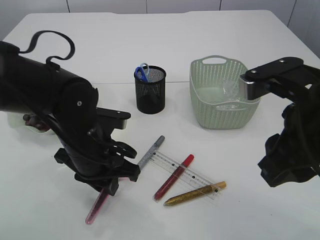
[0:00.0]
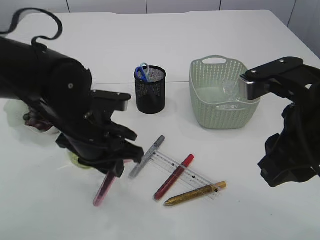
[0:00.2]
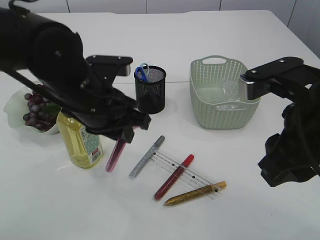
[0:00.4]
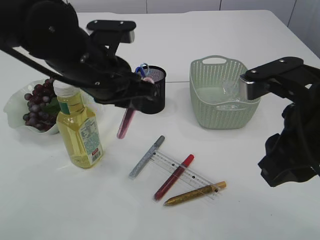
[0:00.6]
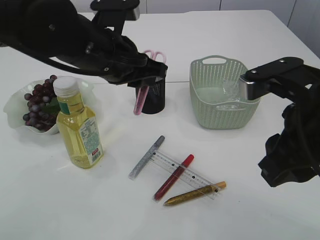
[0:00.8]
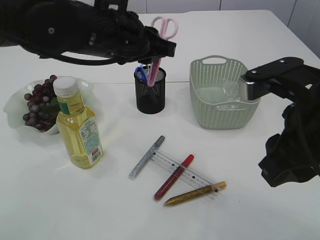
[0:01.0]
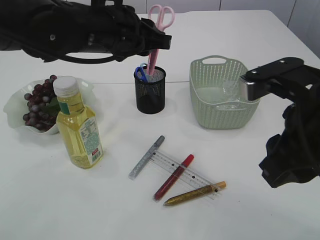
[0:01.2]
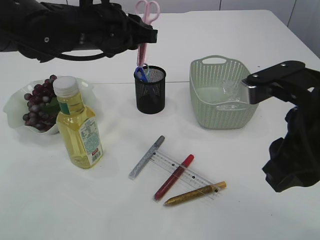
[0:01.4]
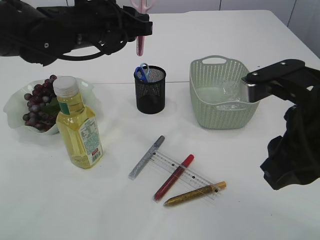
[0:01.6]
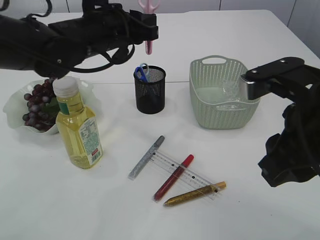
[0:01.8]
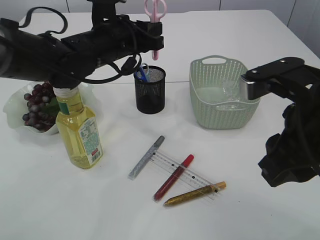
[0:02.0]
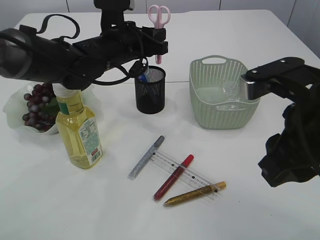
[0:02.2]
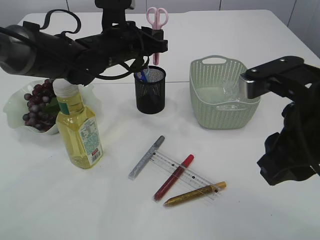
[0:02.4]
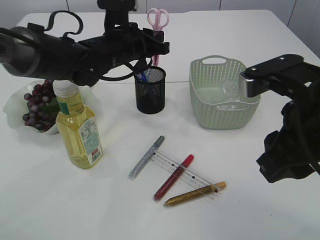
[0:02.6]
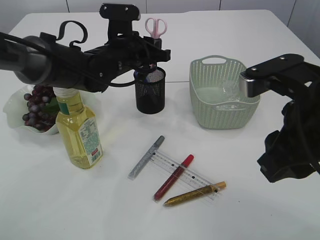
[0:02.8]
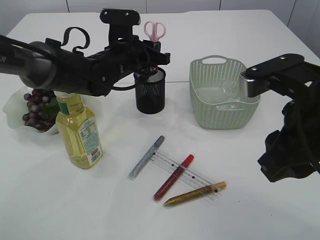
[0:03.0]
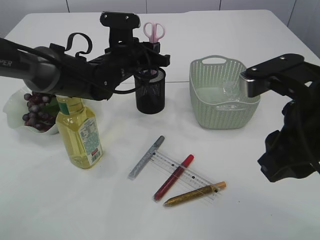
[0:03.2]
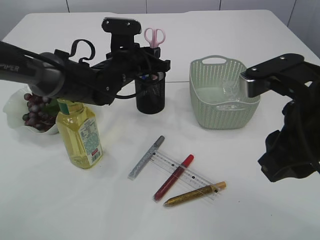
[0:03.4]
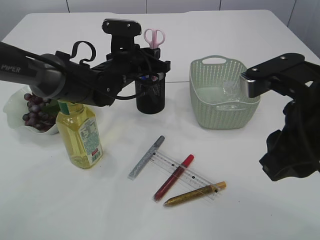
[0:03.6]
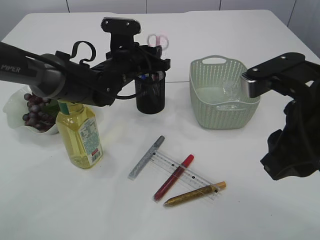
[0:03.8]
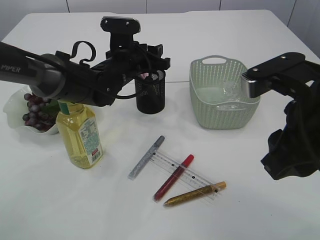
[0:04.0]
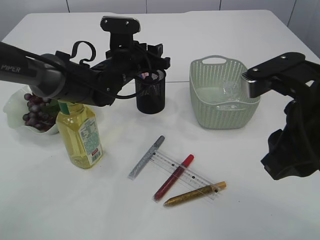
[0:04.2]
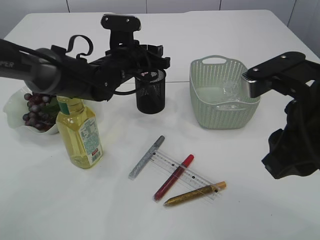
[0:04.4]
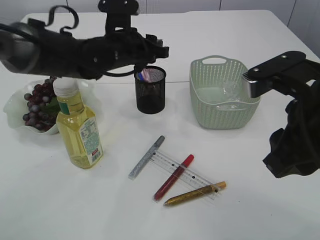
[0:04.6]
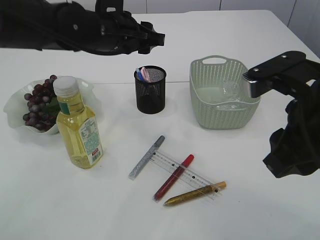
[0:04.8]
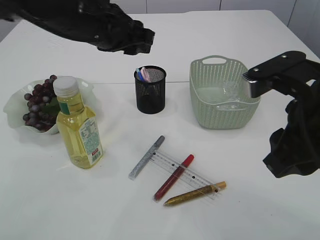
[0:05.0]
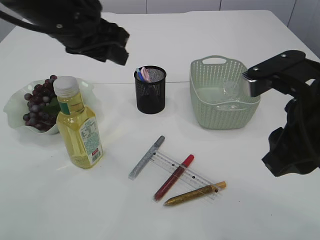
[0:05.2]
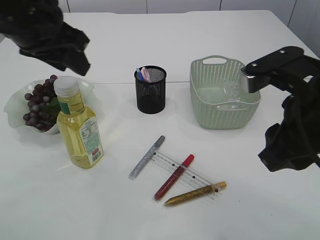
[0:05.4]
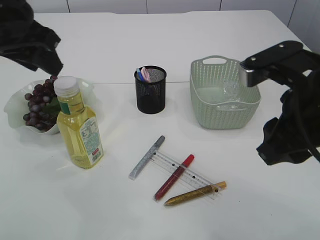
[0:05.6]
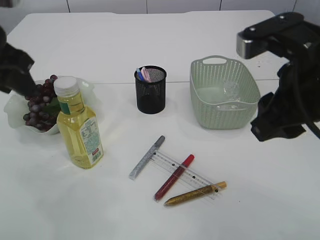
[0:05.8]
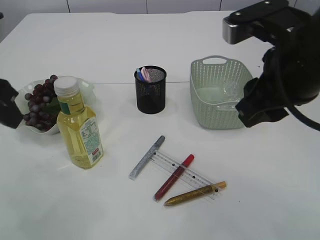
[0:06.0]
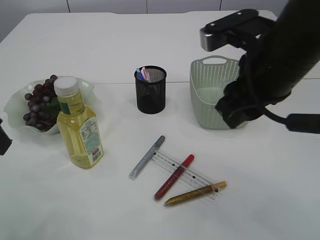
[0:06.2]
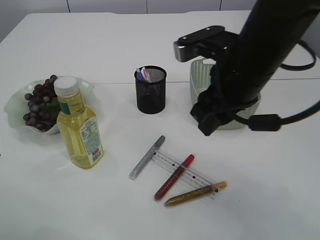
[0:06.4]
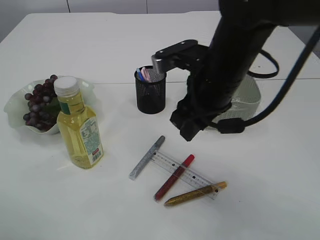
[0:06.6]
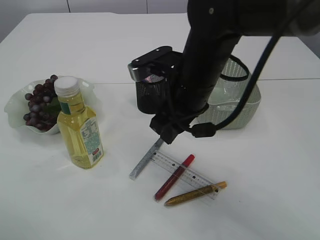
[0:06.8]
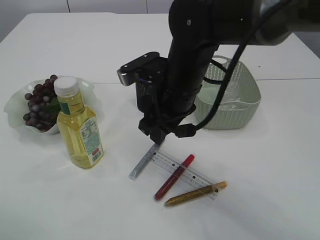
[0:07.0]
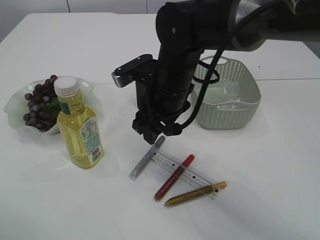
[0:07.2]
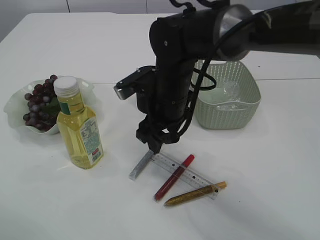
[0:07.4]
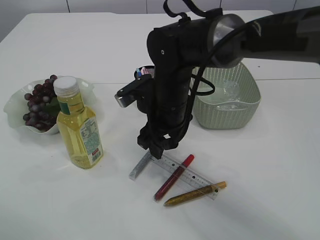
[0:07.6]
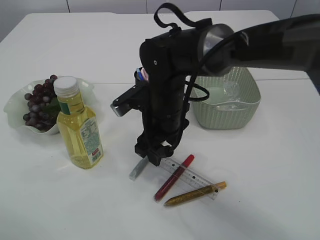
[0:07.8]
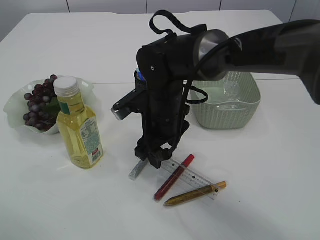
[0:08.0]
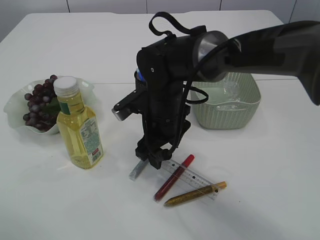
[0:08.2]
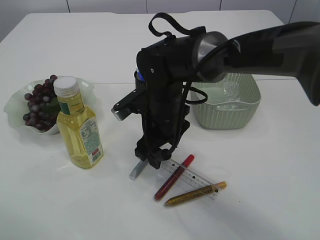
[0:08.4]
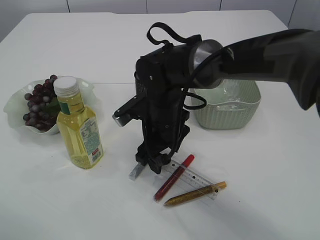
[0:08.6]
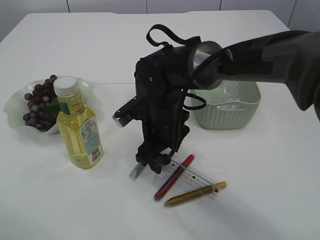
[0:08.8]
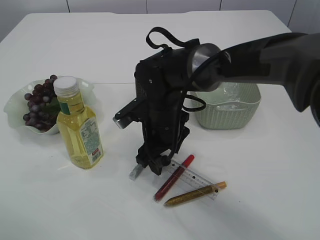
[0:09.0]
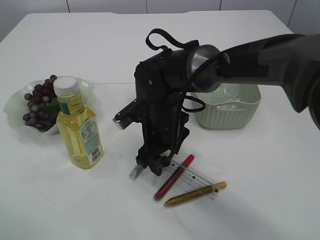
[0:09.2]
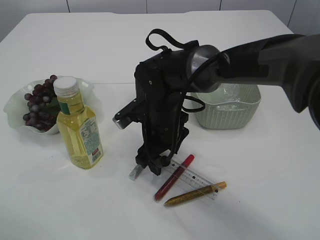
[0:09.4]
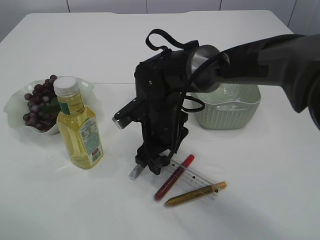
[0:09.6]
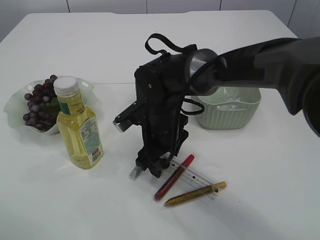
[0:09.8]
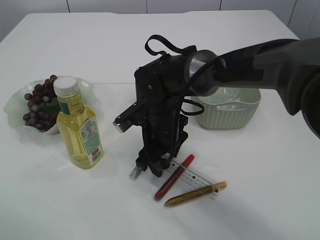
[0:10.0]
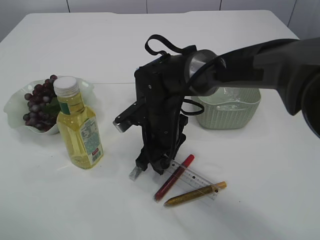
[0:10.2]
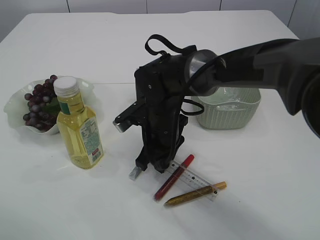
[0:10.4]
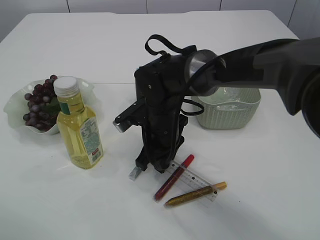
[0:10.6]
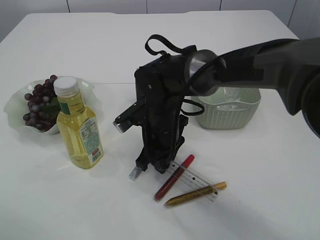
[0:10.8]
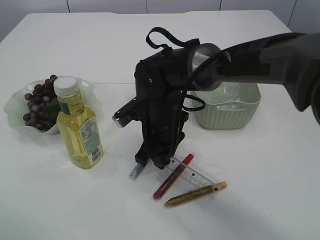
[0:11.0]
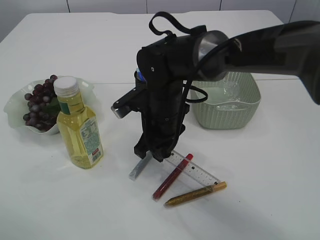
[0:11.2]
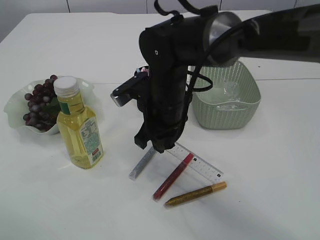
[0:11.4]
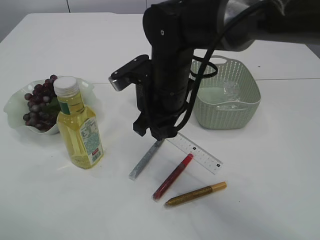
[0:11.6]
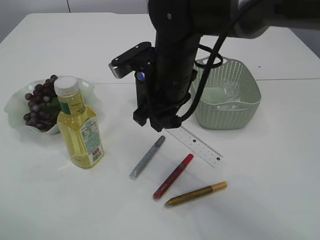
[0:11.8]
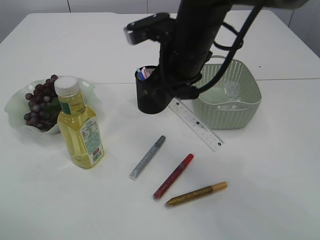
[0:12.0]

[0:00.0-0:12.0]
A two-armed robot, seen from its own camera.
Step, 0:00.4 to 0:04.6: Place the pink scissors into the pen holder.
Step, 0:04.8 to 0:11.8: pick up the ruler.
0:00.0 to 0:01.6: The left gripper goes roughly 15 cm upward and forward.
0:01.6 to 0:03.0: The left gripper is displaced downward by roughly 10 cm.
0:03.0 to 0:04.4: The left gripper opens.
0:04.4 to 0:06.0: The right gripper moves some 5 cm, while the left gripper goes about 25 cm backward, to the left and upward.
0:06.0 to 0:07.6: The left gripper heads backward, covering about 10 cm; the right gripper moves downward, to the left and forward, about 25 cm.
0:07.6 to 0:09.0: There are only small adjustments of the grippers.
0:09.0 to 0:10.4: The right gripper closes up.
0:10.4 to 0:12.0: The right gripper goes some 15 cm upward.

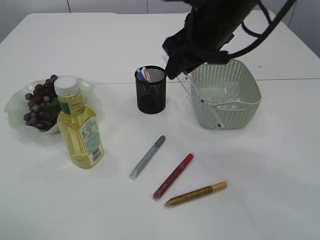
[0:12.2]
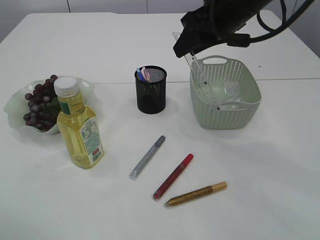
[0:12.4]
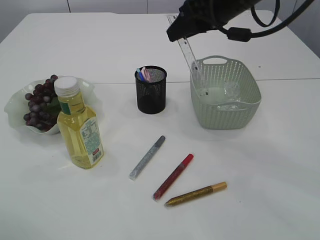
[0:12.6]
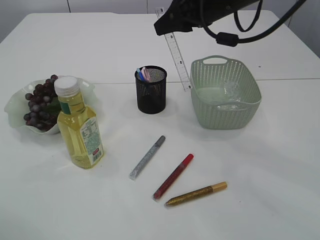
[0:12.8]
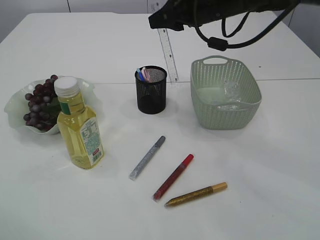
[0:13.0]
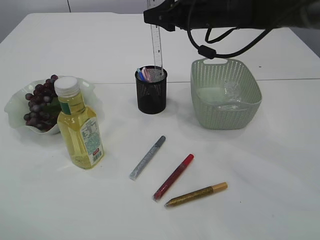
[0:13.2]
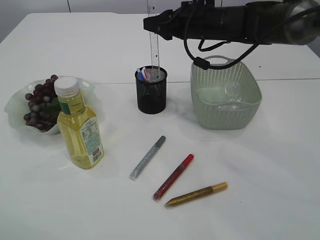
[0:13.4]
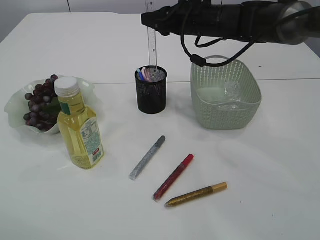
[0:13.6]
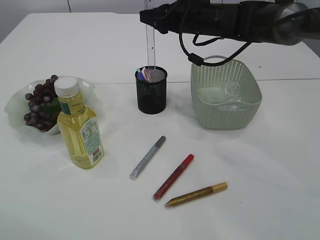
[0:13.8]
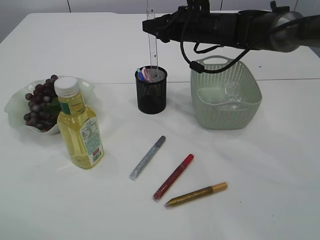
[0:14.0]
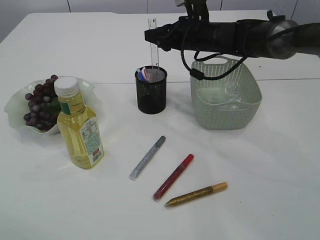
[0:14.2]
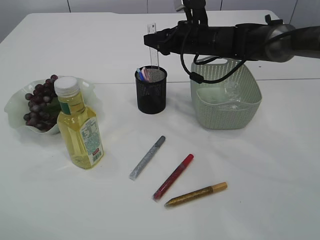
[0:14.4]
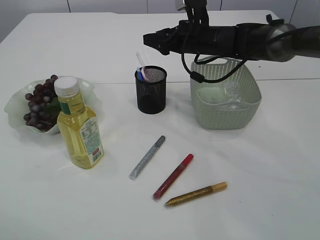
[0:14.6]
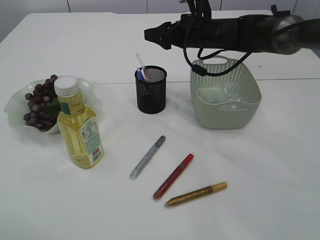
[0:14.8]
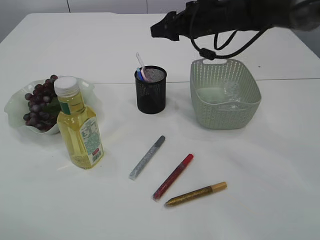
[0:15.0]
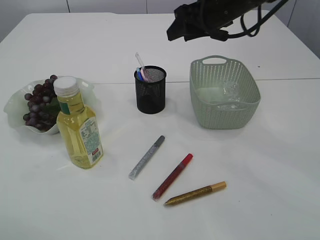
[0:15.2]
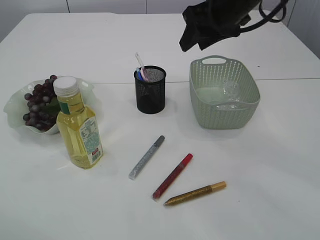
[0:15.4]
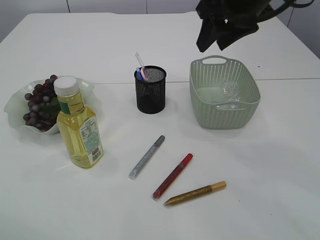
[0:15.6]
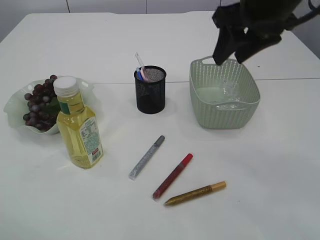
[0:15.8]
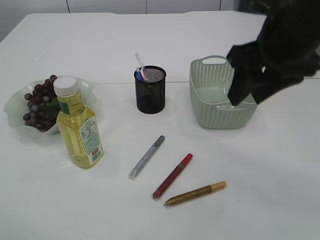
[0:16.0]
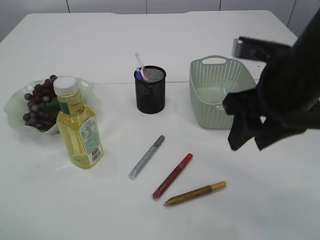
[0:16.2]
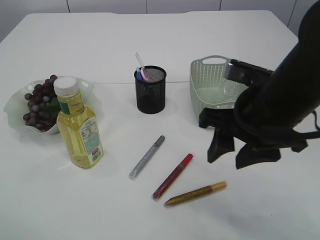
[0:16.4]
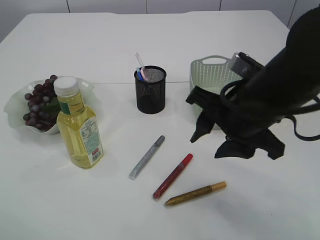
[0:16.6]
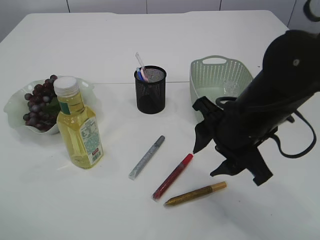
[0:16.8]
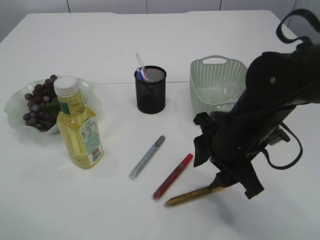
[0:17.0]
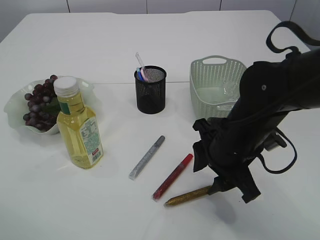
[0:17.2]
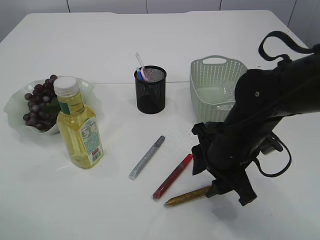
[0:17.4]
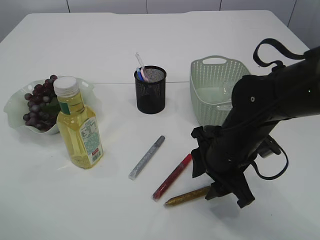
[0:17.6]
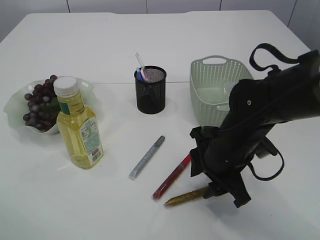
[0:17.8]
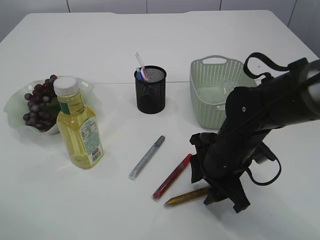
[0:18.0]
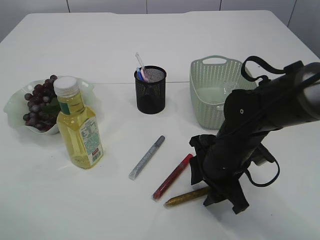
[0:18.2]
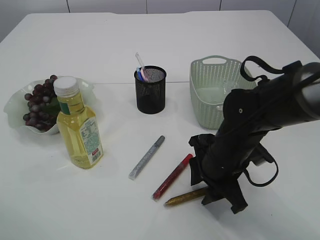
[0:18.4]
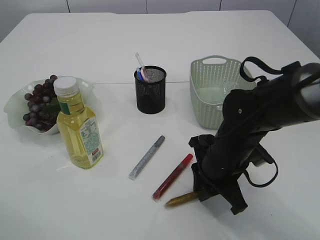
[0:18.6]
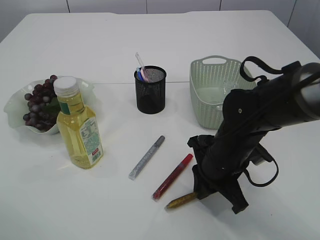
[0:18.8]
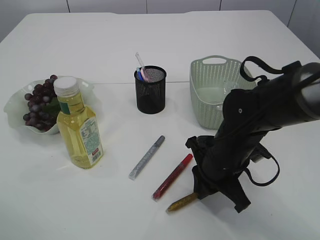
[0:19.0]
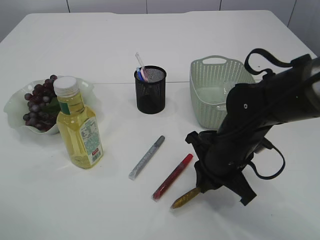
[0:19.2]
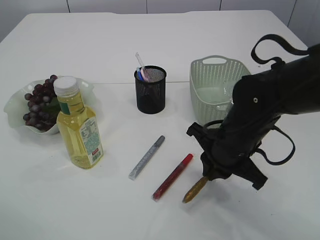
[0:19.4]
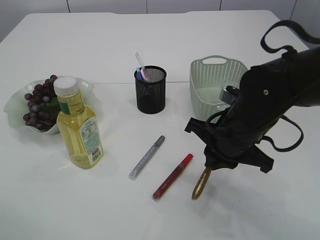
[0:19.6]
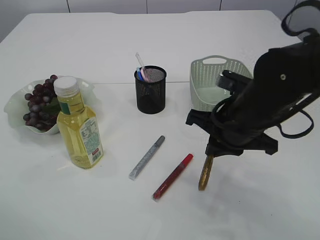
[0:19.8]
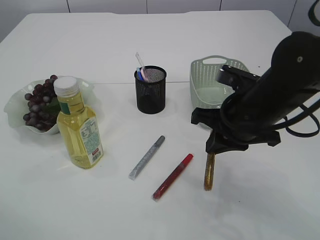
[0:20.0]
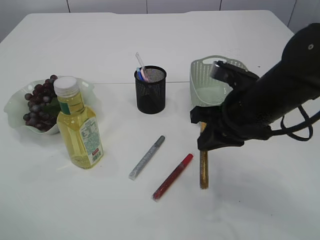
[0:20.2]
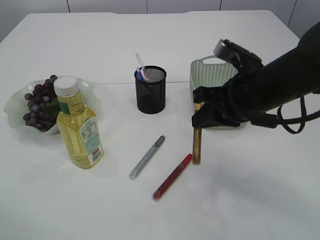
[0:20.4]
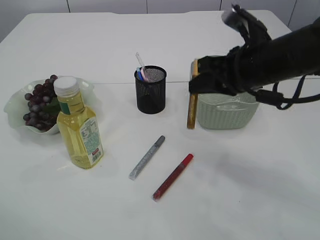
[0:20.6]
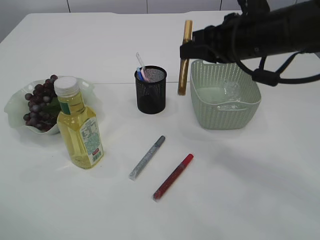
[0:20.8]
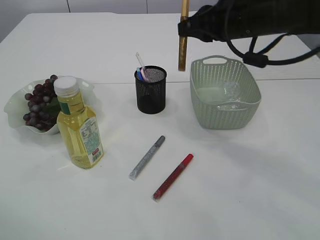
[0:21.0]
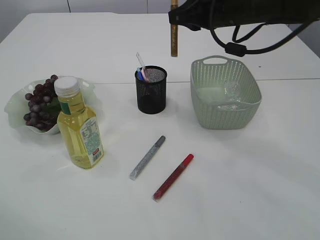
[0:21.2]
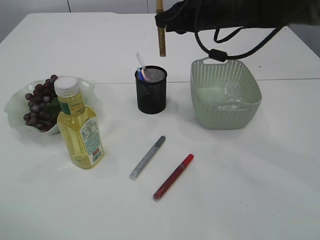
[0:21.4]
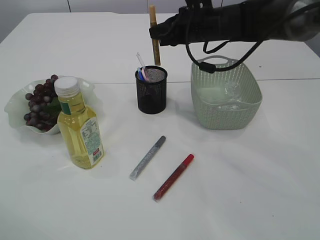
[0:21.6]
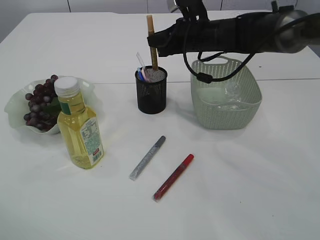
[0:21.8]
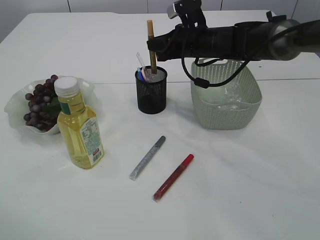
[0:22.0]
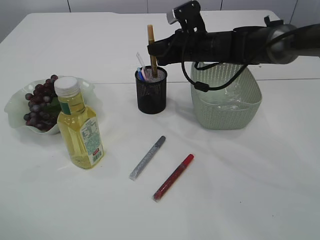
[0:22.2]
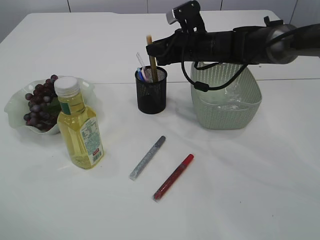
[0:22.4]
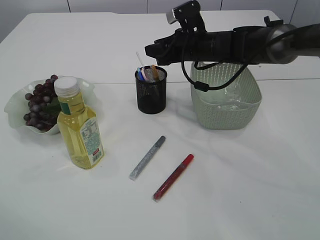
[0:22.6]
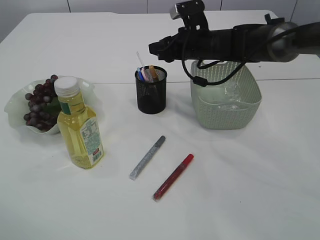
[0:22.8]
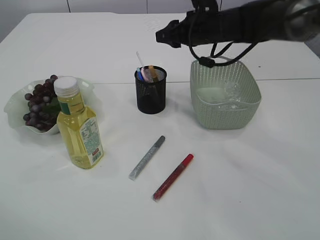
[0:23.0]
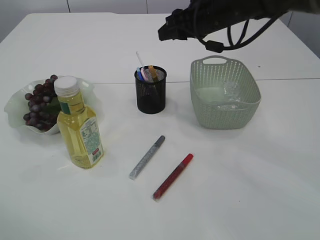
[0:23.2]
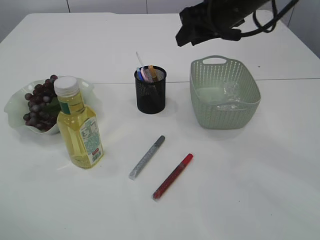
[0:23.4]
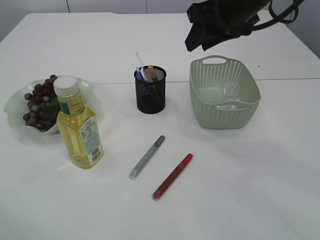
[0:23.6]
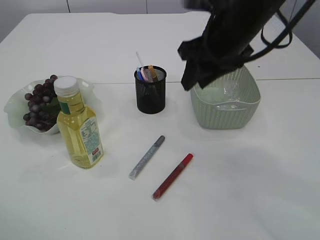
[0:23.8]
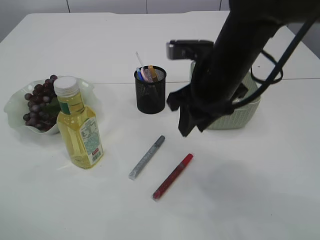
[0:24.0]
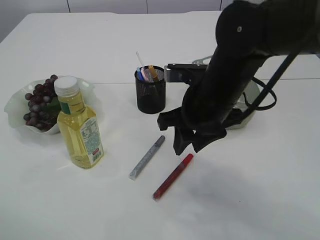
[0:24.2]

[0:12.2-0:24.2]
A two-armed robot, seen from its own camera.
Step, 0:12.2 to 0:14.8: Place the ruler into the pen holder.
Step, 0:15.0 to 0:19.8: pick up the yellow glue.
Step, 0:20.0 to 0:23.2: place the yellow glue into the pen holder.
0:12.2 to 0:13.8: The right gripper travels forward by approximately 15 cm.
0:13.8 to 0:15.2: The right gripper ends up some 5 cm from where it was.
0:15.2 to 0:16.6: The right gripper shifts about 20 cm backward.
0:16.6 to 0:18.2: The right gripper is displaced downward by approximately 15 cm.
0:18.2 to 0:19.8: The right gripper goes about 10 cm upward, and closes its fingers.
0:19.8 to 0:21.2: The right gripper moves forward and upward, approximately 15 cm.
0:21.2 to 0:22.6: The right gripper goes about 15 cm downward and forward, and opens.
0:22.6 to 0:24.2: The right gripper moves backward, roughly 20 cm.
